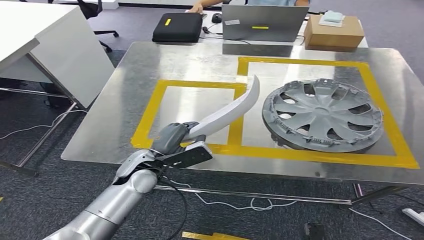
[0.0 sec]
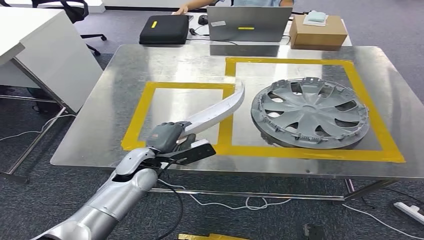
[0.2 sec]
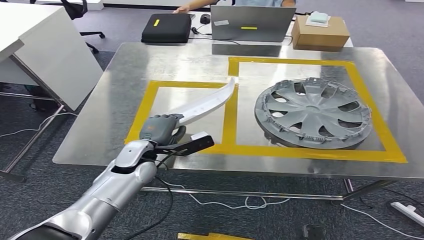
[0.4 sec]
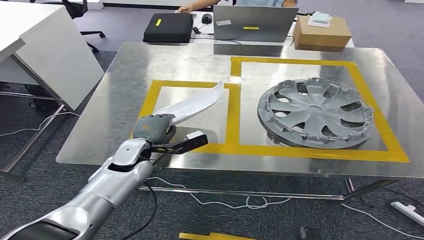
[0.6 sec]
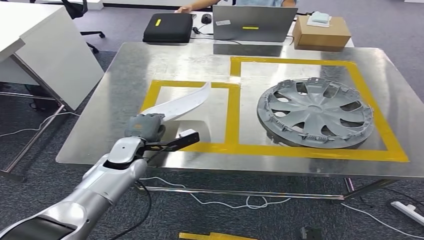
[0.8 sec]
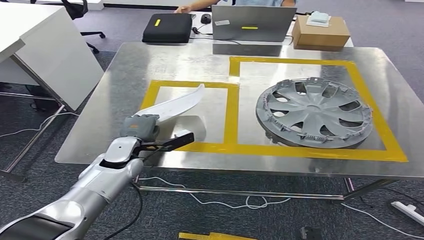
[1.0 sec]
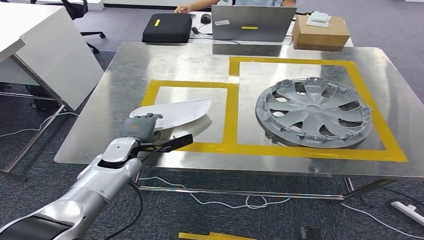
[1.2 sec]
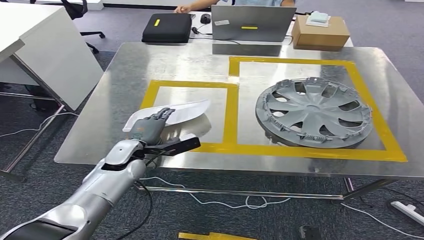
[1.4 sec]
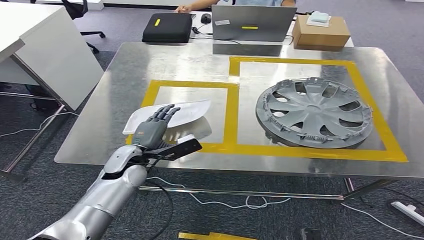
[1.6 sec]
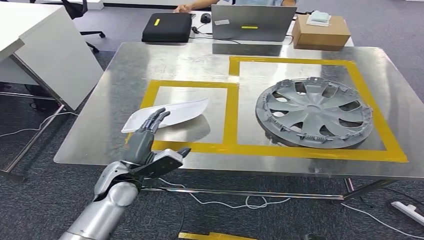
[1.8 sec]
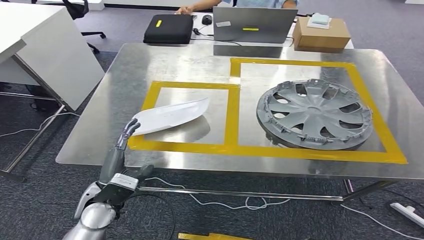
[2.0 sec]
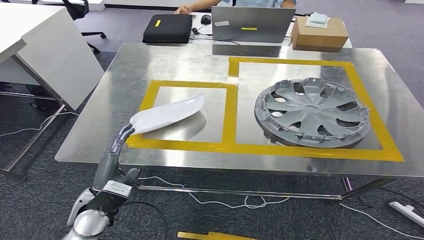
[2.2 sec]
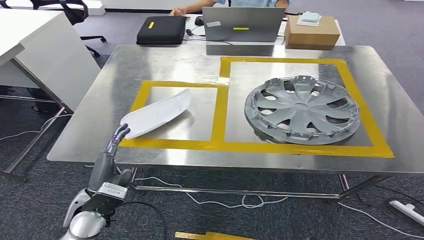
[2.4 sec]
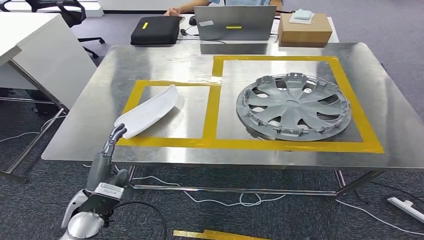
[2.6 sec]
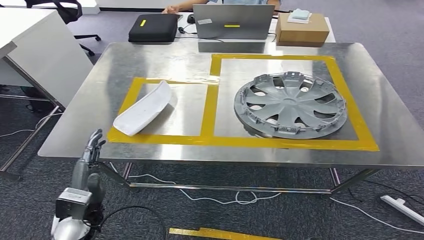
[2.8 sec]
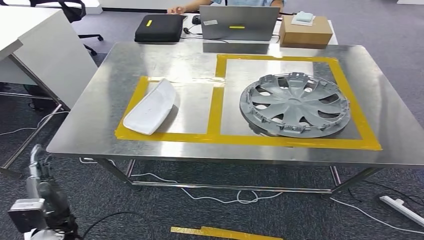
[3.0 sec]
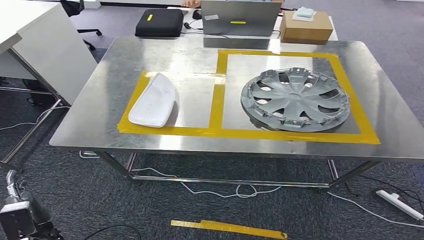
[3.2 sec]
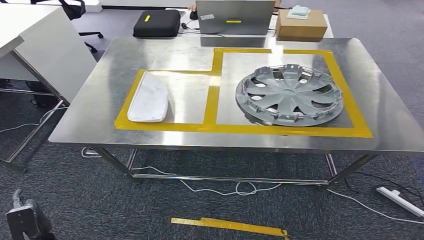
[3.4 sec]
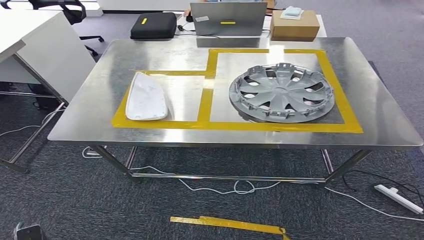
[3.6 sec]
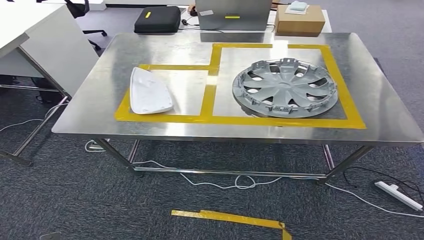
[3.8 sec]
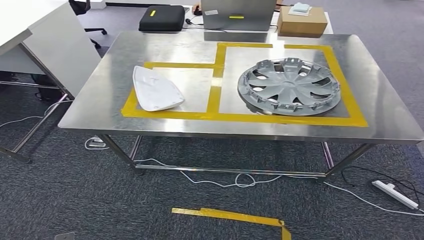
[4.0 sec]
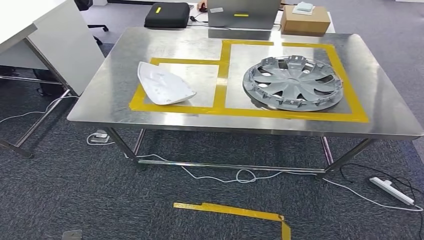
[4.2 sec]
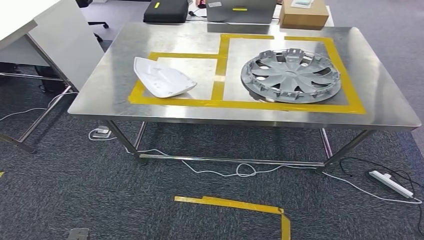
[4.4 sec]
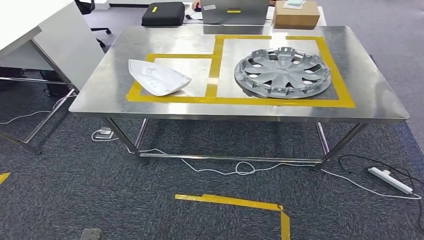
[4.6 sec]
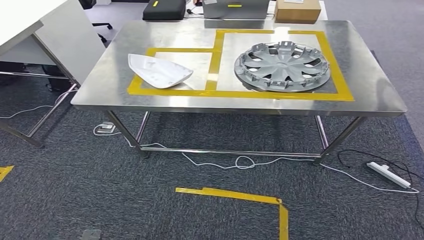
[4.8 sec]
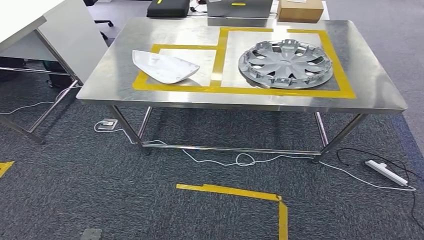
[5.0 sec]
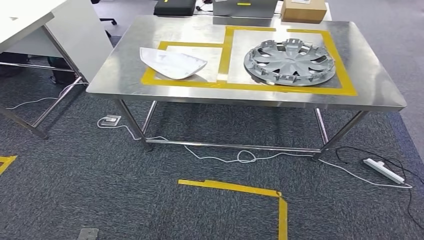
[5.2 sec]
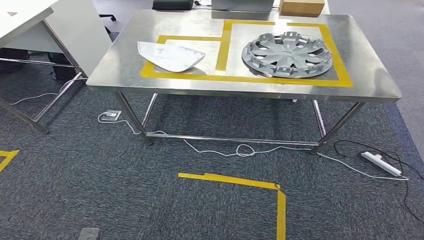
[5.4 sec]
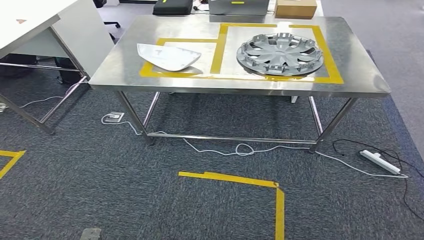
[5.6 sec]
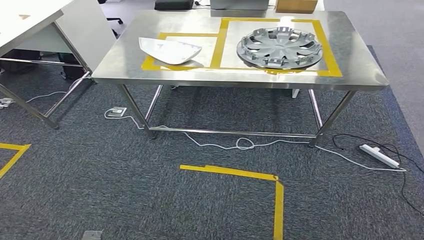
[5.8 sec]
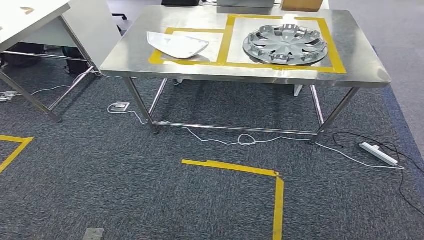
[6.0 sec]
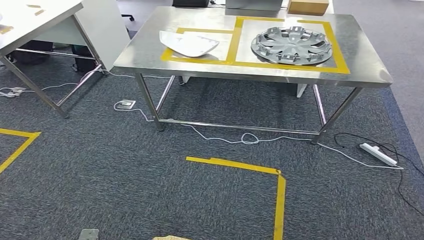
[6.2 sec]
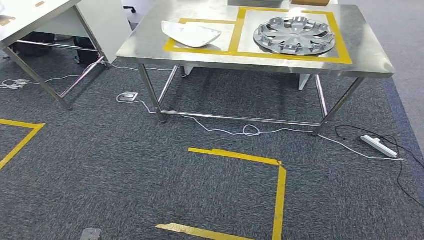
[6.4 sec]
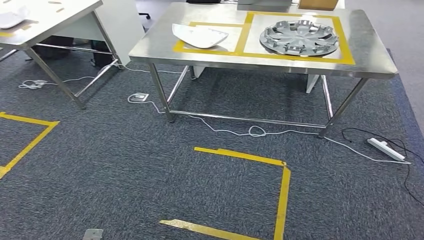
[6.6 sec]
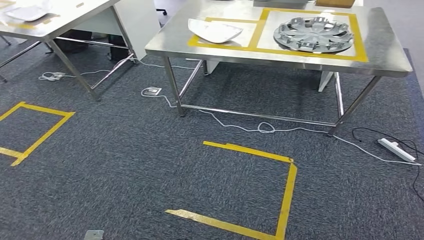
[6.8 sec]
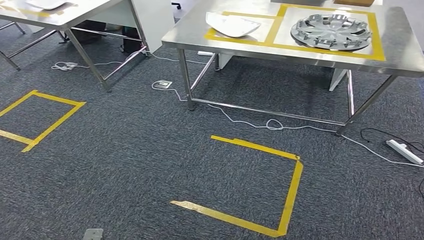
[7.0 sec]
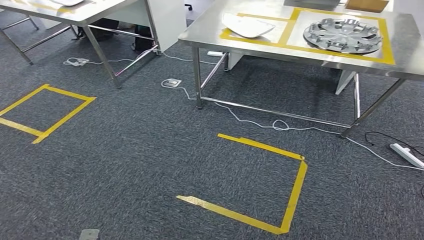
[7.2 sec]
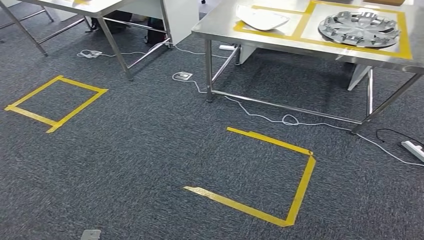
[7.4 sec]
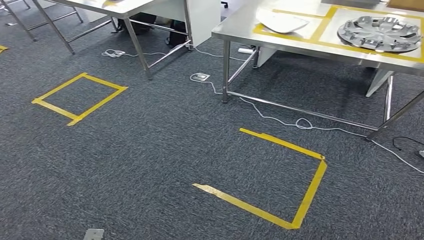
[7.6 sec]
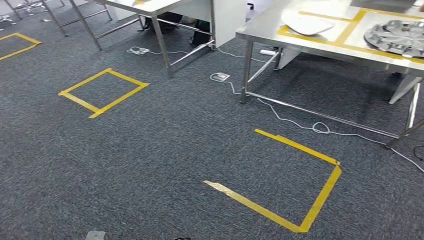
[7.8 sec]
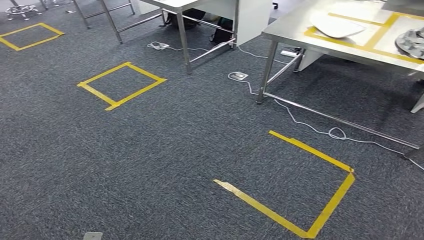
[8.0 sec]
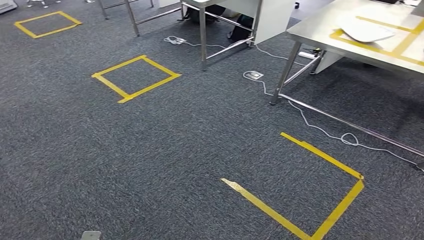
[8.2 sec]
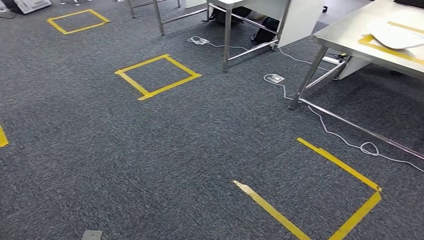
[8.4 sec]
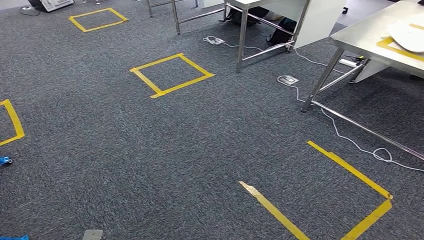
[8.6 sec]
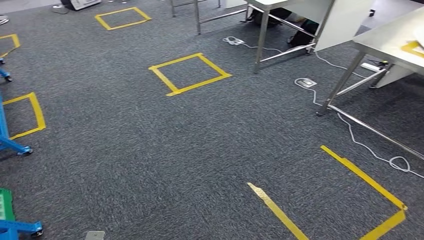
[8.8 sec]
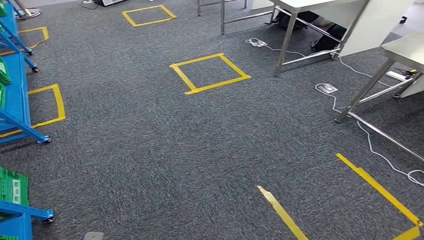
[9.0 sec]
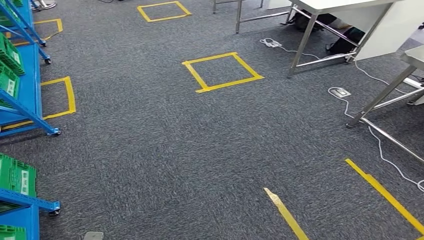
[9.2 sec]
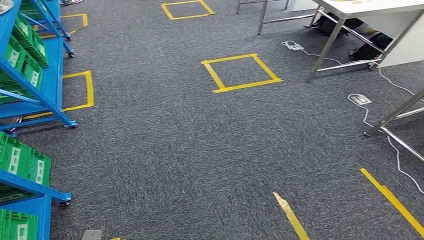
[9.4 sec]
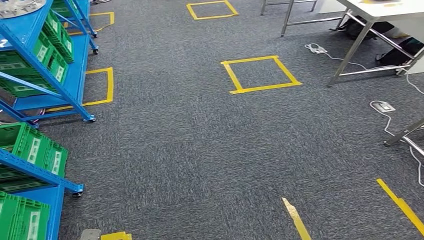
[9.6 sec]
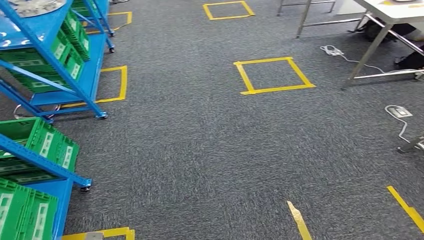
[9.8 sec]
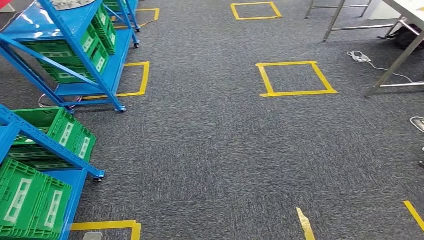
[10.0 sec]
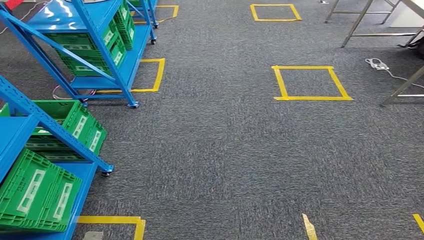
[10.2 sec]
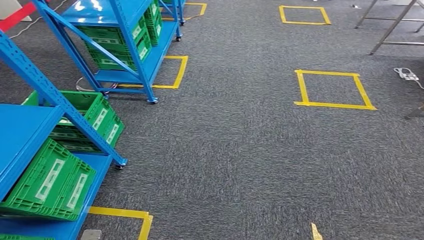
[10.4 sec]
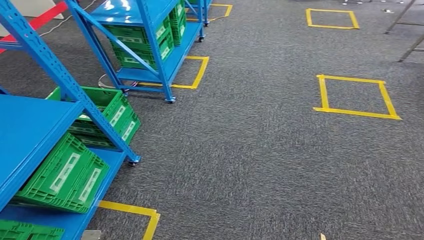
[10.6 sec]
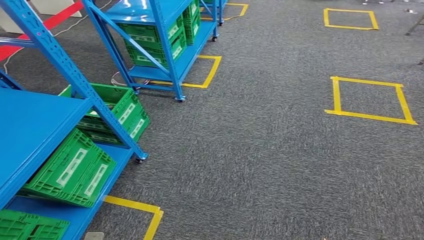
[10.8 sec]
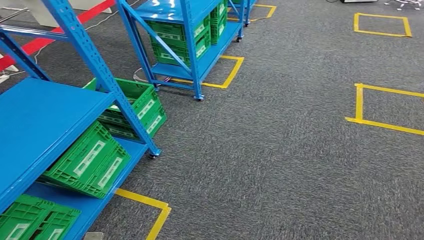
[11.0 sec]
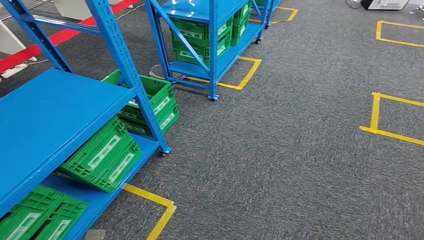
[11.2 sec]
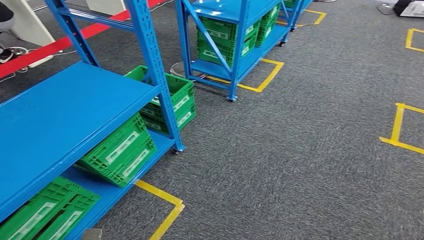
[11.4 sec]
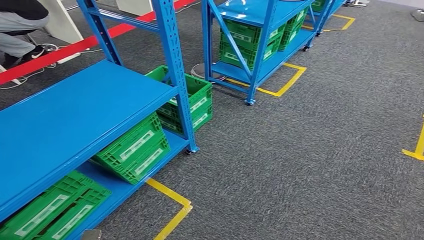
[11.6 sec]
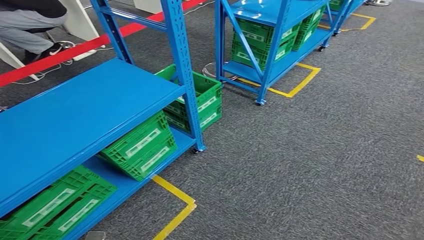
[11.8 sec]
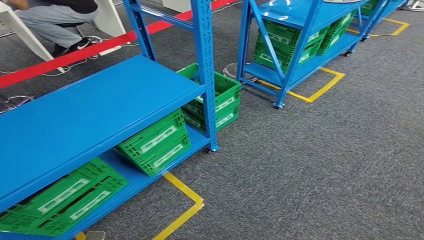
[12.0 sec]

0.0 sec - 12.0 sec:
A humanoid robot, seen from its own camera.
Step, 0.0 sec - 6.4 sec: Insert the small parts into the corresponding holes on the workbench.

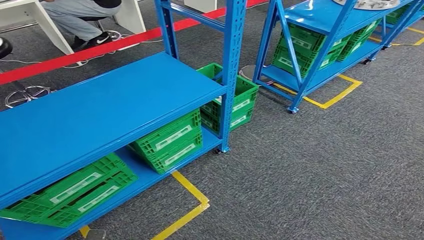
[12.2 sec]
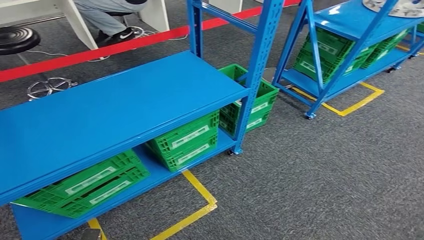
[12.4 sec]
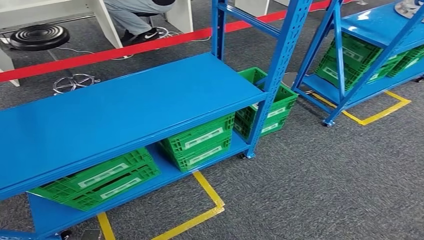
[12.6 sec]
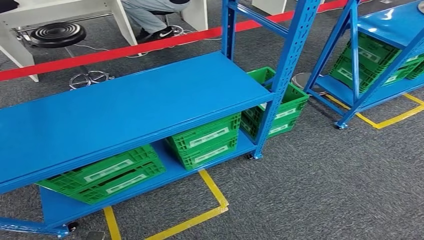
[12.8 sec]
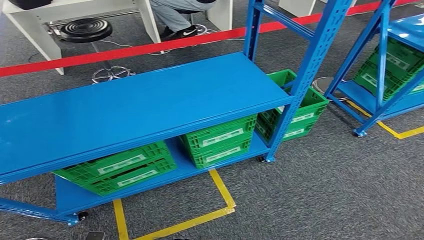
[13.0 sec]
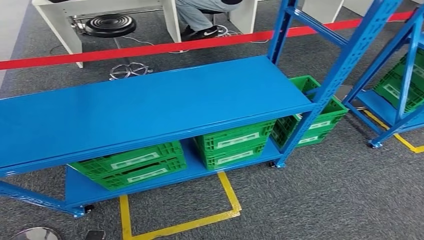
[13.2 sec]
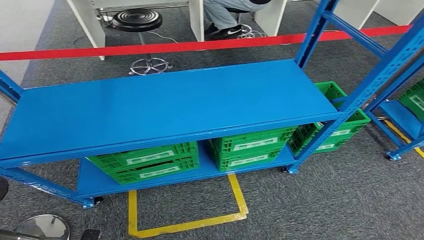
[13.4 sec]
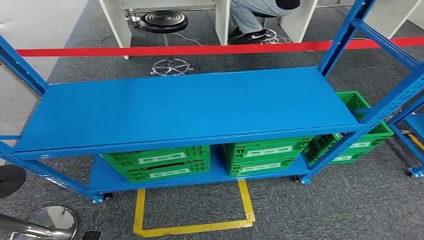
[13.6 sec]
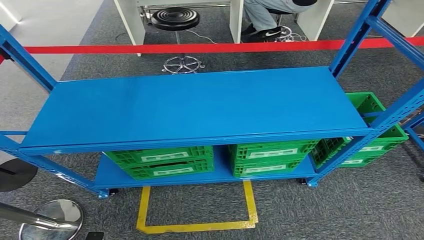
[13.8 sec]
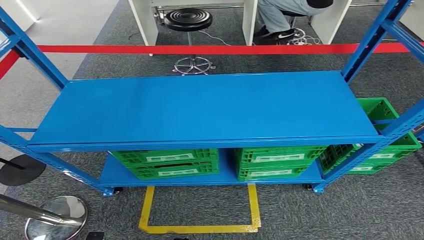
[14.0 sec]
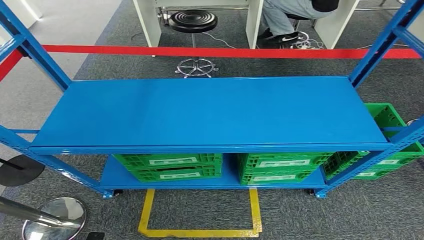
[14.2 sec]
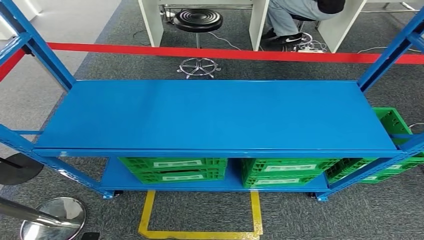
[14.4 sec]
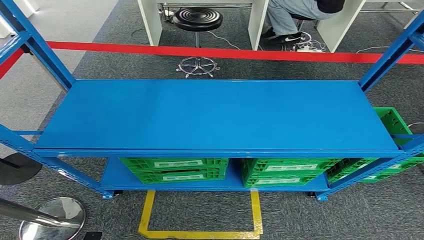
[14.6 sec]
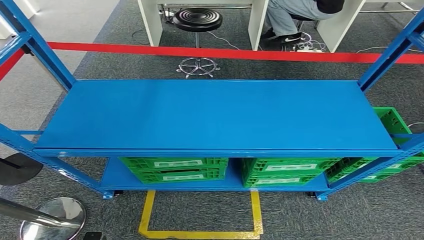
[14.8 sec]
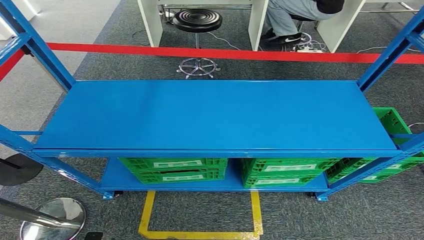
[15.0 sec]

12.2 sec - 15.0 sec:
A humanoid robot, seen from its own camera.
Step, 12.2 sec - 15.0 sec: Move to the initial position of the workbench.
